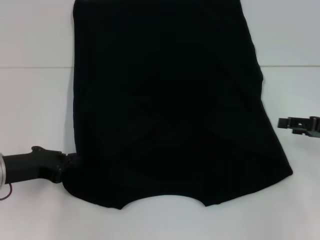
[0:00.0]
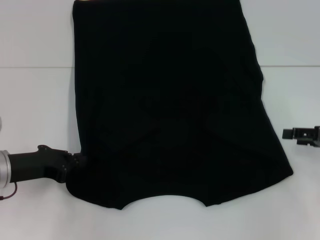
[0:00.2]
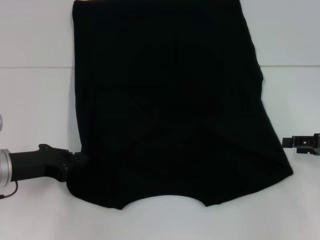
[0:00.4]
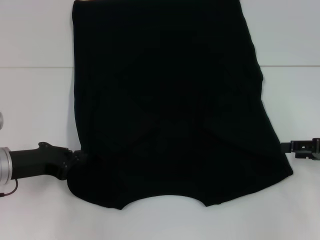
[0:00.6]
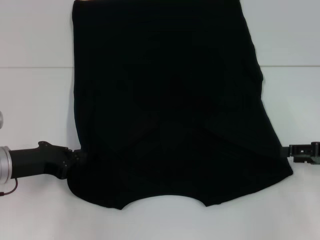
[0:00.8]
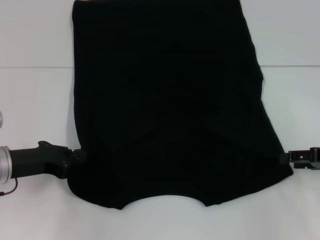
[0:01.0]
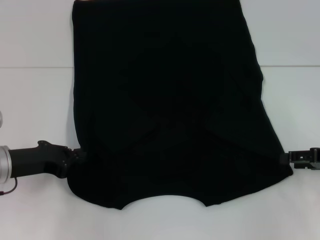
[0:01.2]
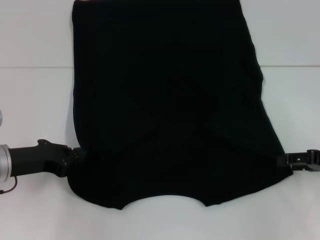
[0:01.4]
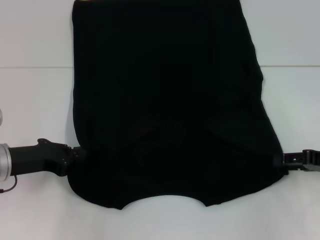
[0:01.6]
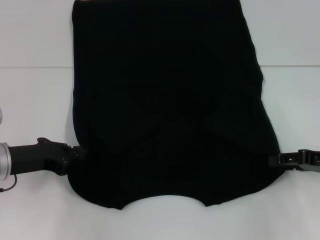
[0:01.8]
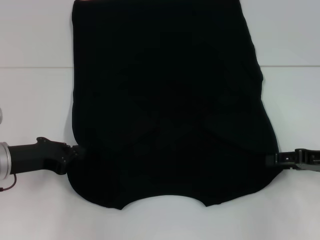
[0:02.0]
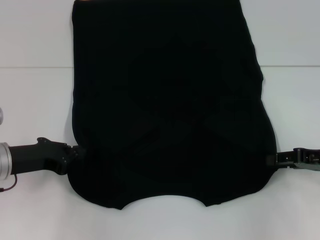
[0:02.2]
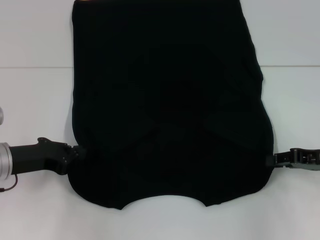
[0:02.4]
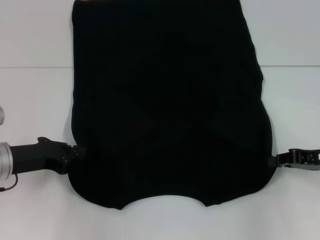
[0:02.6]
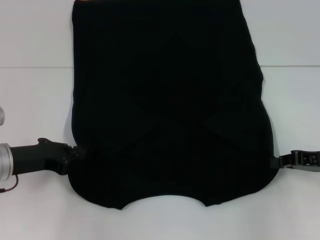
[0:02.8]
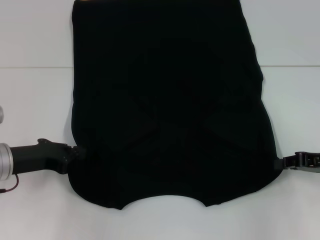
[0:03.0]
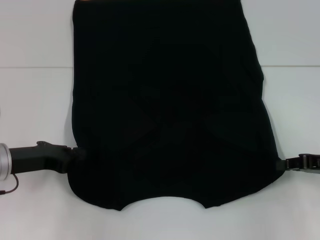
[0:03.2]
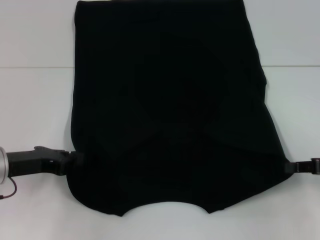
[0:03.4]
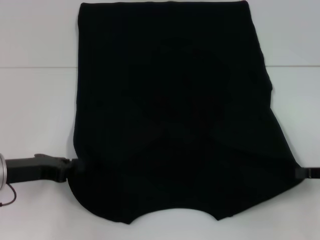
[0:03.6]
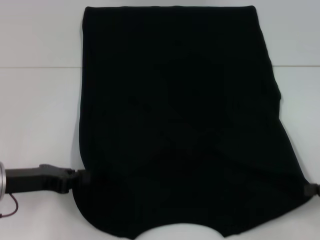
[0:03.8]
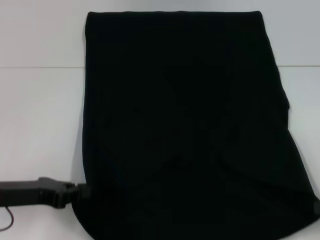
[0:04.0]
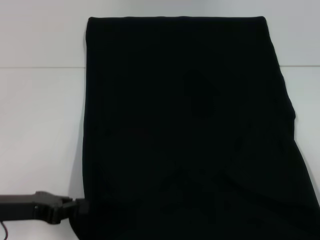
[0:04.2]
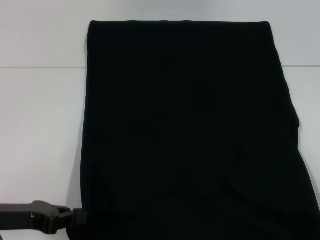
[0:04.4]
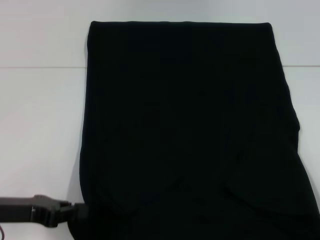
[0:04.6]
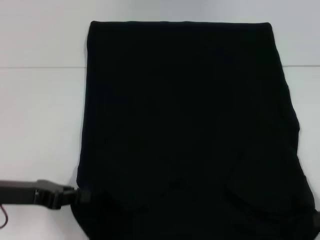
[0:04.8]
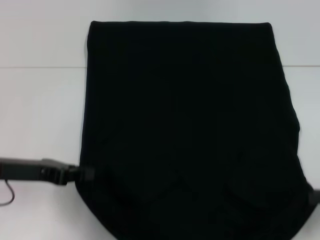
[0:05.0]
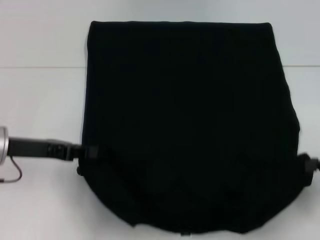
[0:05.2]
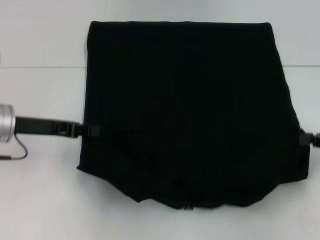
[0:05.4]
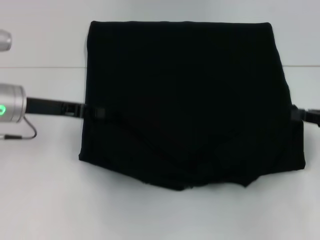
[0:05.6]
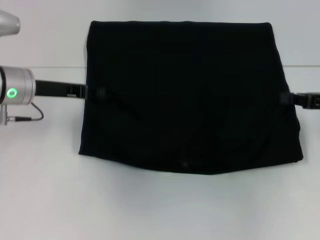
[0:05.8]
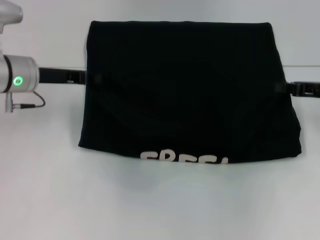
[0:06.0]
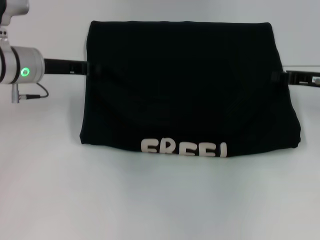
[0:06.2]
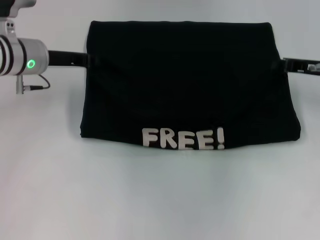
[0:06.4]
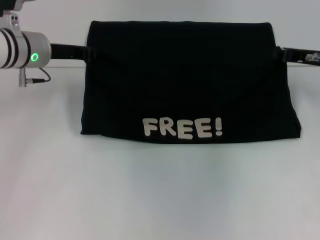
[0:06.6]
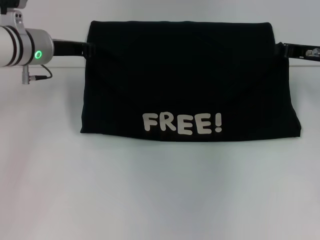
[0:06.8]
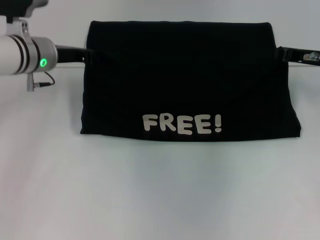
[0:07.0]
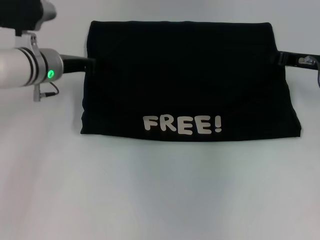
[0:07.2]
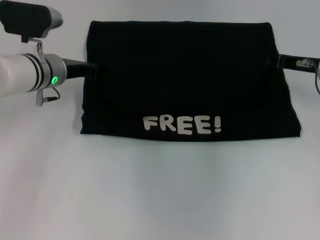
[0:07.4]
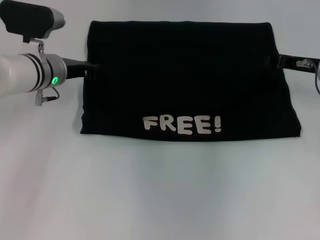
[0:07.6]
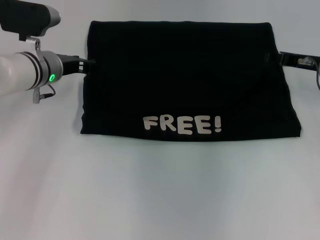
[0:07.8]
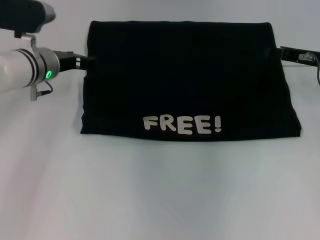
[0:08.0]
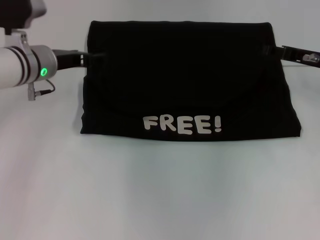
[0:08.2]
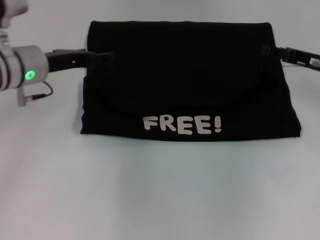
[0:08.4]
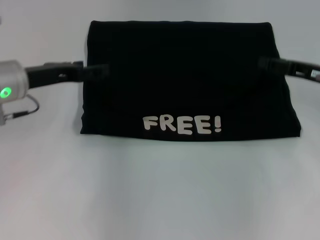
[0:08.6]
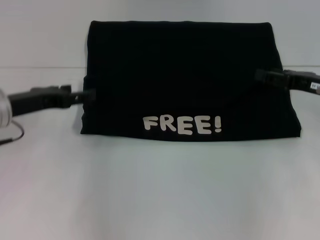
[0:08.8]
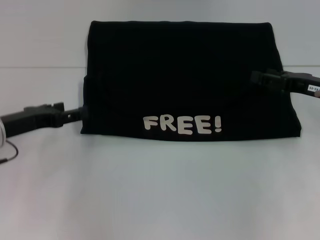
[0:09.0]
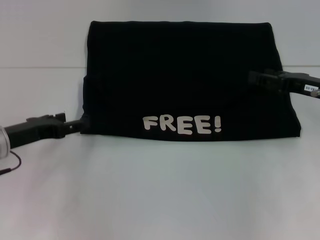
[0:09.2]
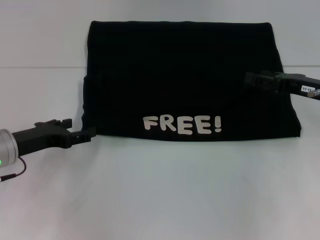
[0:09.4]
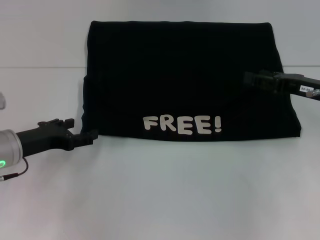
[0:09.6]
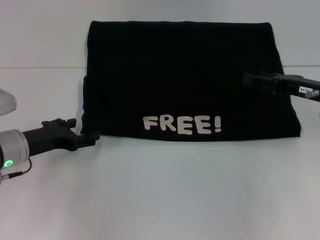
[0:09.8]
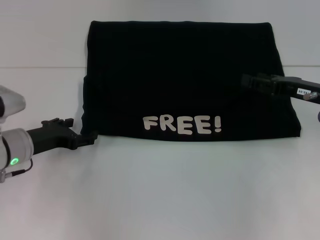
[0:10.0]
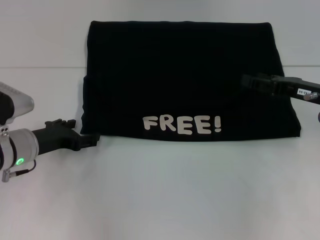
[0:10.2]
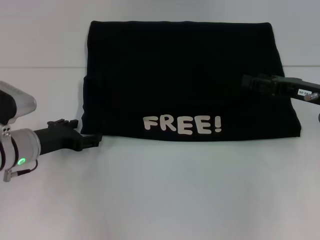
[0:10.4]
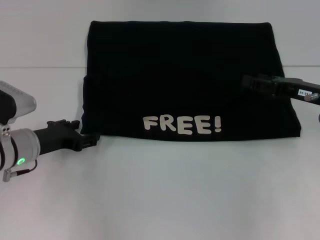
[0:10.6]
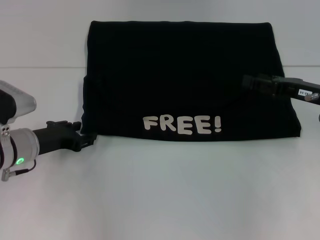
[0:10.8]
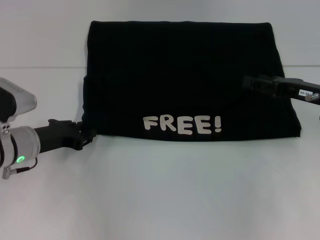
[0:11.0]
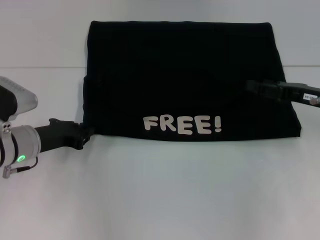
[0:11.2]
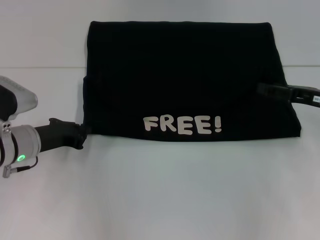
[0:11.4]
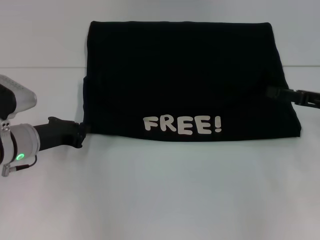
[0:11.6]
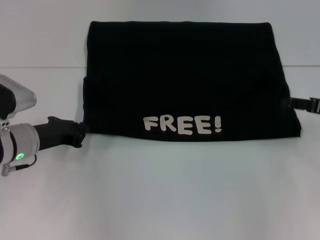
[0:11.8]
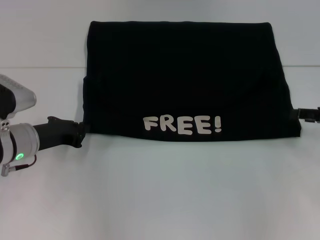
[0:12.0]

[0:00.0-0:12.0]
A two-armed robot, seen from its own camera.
Step, 0.0 to 2.6 s: Grab the bottom right corner with your right hand.
Step, 2.8 to 8.2 s: Fold the clothes with your left hand.
Step, 2.8 to 8.2 s: Fold the clothes with your right hand.
0.0 to 1.6 s: There are only small adjustments of the grippers.
1.6 to 3.0 s: The right gripper closes its fingers.
3.0 to 4.4 s: The left gripper goes about 5 cm backward. The right gripper is displaced backward and to the right by approximately 15 cm.
4.4 to 6.0 s: The grippers both shift forward by about 20 cm.
6.0 to 7.6 s: The left gripper changes place by some 5 cm; the right gripper goes some 5 cm forward.
7.6 to 9.0 s: The right gripper goes some 5 cm backward, and opens. Meanwhile the left gripper moves backward and to the left, about 15 cm, and opens its fingers.
9.0 to 10.4 s: The left gripper moves downward, roughly 5 cm.
10.4 to 12.0 s: The left gripper closes up; the right gripper goes approximately 5 cm to the right.

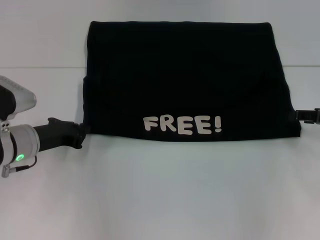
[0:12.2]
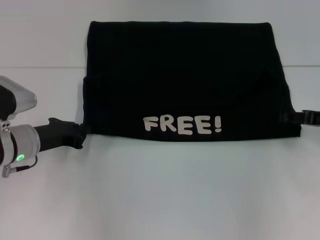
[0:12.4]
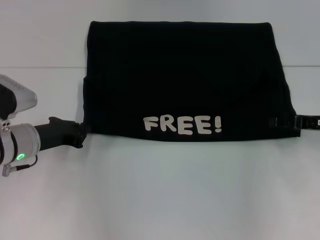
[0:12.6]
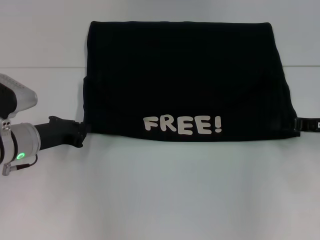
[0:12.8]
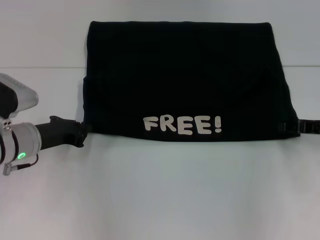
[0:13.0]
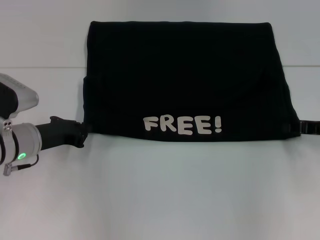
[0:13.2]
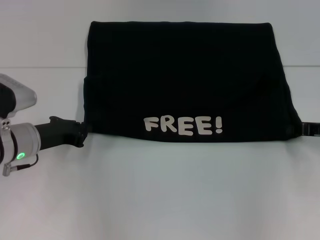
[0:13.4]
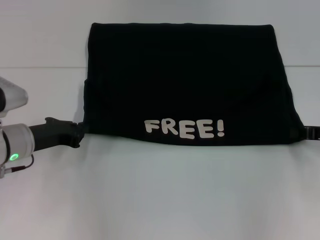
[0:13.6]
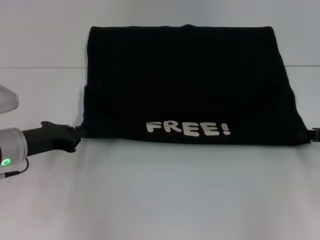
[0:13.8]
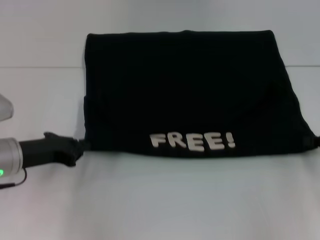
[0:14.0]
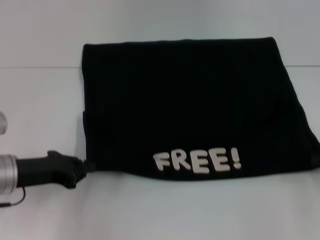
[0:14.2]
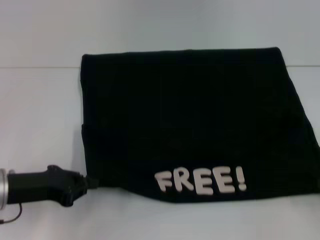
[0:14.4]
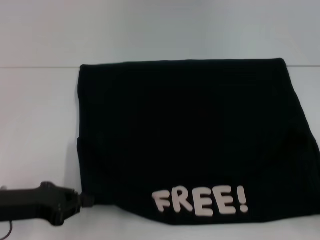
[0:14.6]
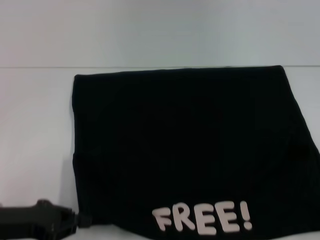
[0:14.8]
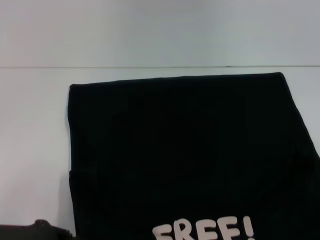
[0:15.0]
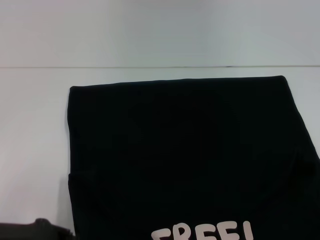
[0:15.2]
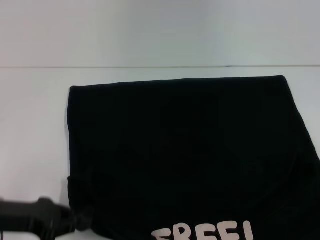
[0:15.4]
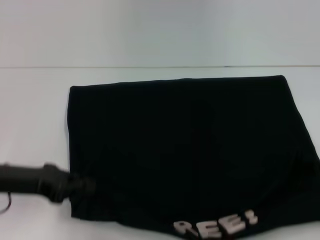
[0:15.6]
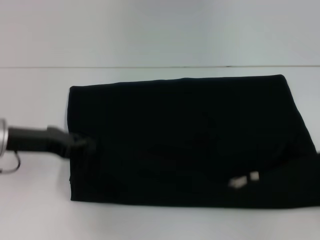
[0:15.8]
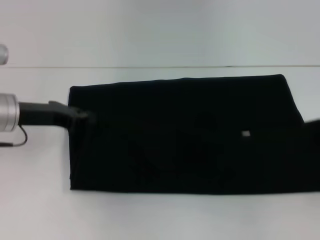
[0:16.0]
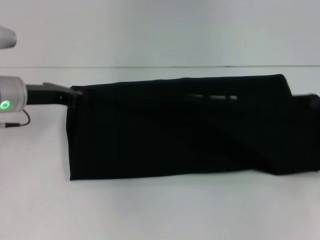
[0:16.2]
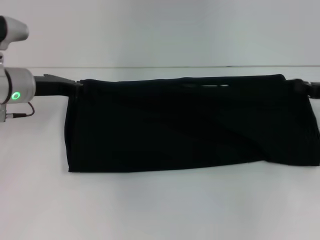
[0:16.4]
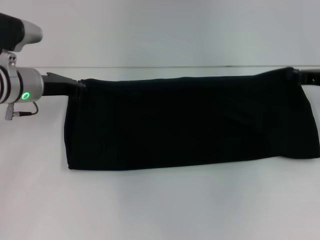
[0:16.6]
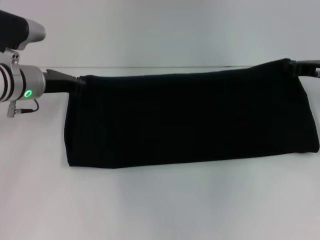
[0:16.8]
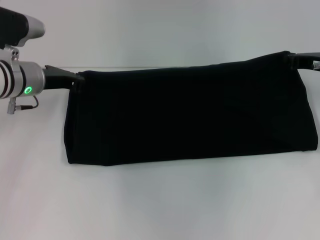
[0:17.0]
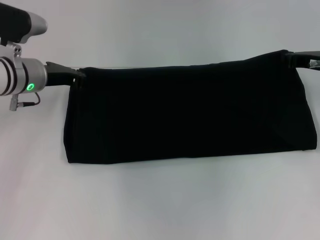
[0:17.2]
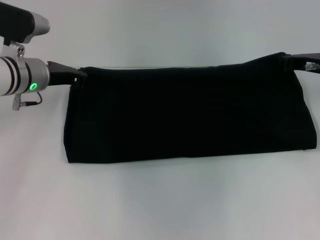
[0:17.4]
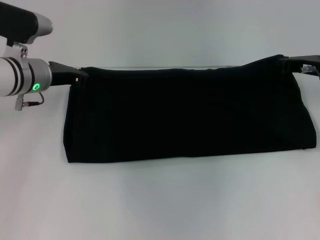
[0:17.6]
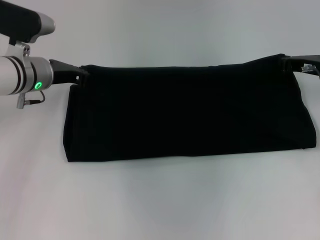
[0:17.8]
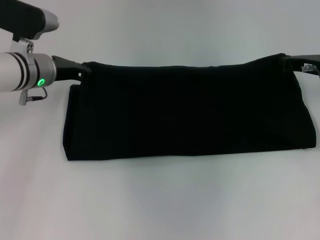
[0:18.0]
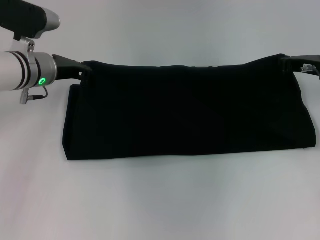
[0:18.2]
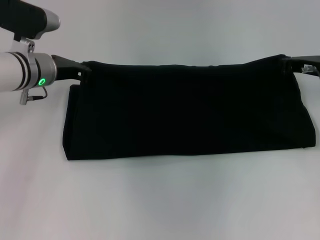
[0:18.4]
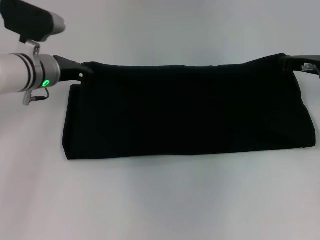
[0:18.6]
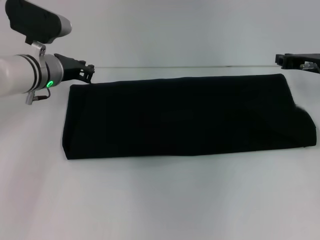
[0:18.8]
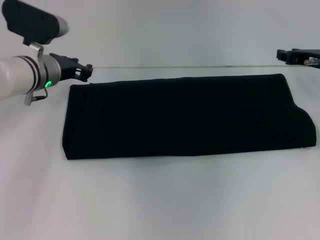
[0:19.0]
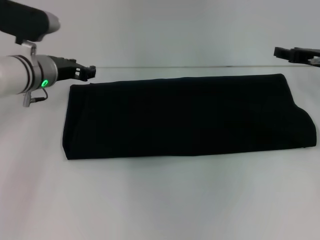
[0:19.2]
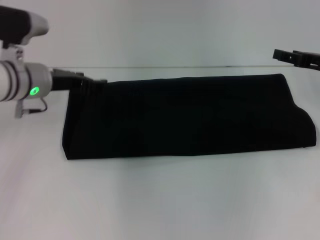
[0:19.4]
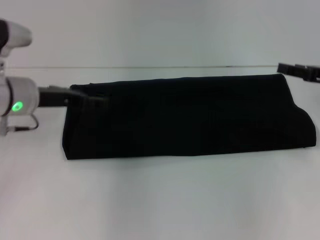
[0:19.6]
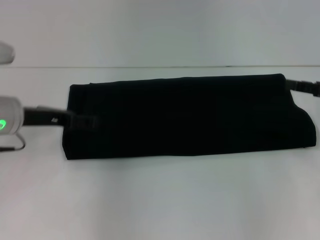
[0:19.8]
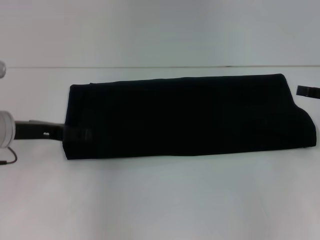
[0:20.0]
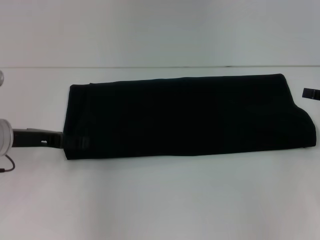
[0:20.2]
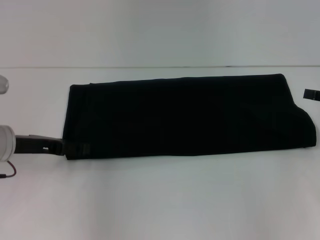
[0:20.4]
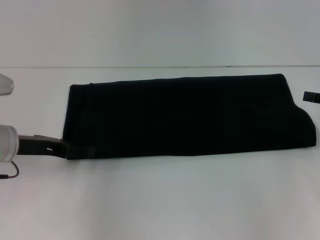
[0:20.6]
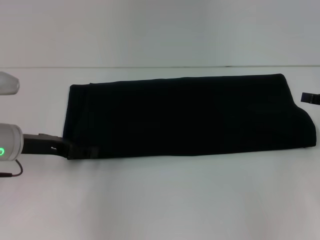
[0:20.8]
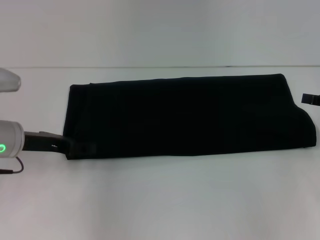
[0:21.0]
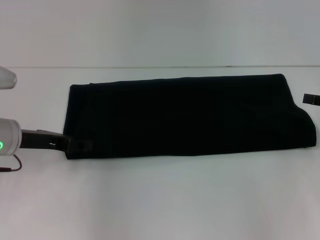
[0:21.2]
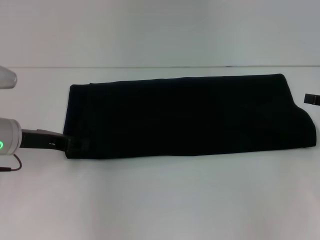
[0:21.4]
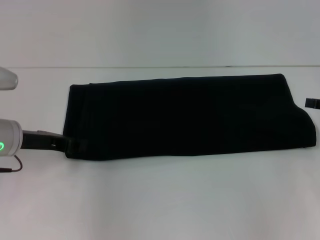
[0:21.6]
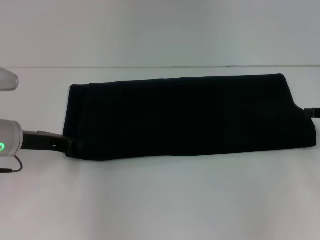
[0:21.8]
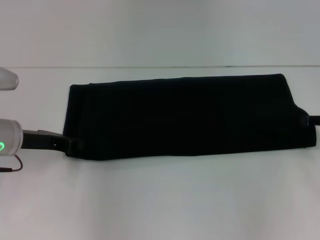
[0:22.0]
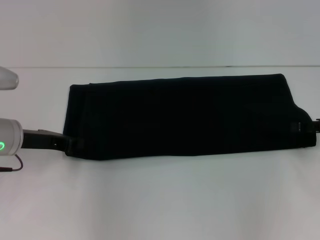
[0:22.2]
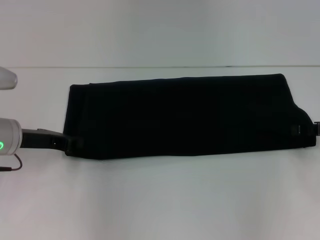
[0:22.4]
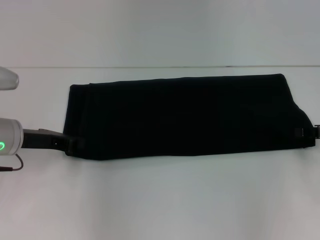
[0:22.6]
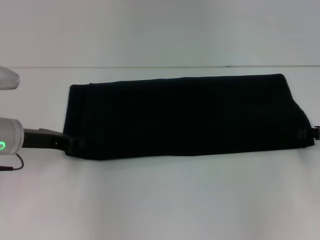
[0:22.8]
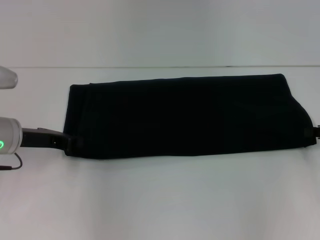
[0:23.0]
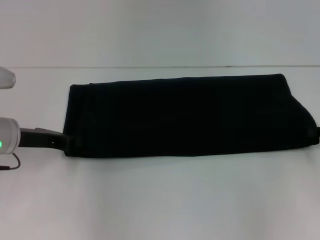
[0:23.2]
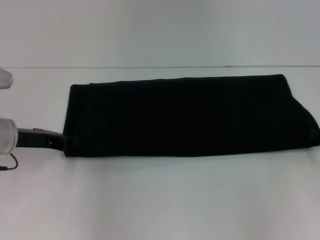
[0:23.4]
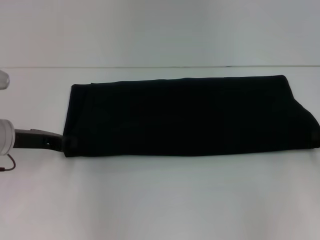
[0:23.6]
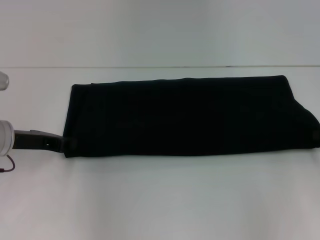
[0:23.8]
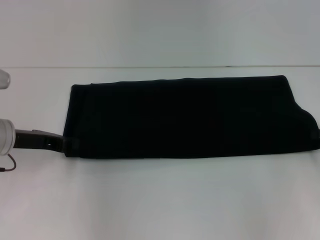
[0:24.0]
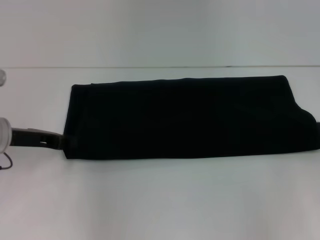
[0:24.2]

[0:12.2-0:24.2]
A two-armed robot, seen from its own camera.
Step, 12.2 to 14.8 s: Pull the clothes with your left hand.
Step, 12.2 to 14.8 s: Pull the clothes with your right hand.
Step, 15.0 to 19.2 s: Fold the clothes with your right hand.
12.2 to 13.8 s: The right gripper closes its fingers.
13.8 to 15.2 s: Both grippers move backward, roughly 15 cm.
15.2 to 16.6 s: The two grippers go about 20 cm forward.
16.6 to 18.2 s: The grippers stay close to where they were, moving slightly.
18.2 to 19.8 s: The right gripper travels backward and to the right by roughly 10 cm, and opens up. The left gripper heads backward, covering roughly 10 cm, and opens its fingers.
19.8 to 21.2 s: There are only small adjustments of the grippers.
21.2 to 22.6 s: The left gripper closes its fingers.
22.6 to 24.2 s: The right gripper closes.
